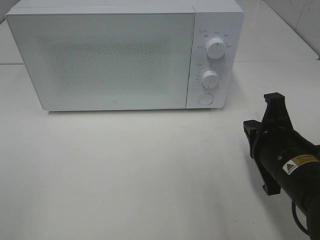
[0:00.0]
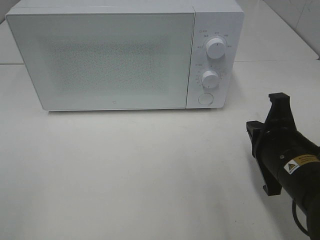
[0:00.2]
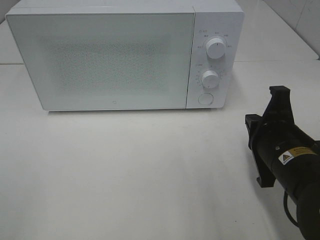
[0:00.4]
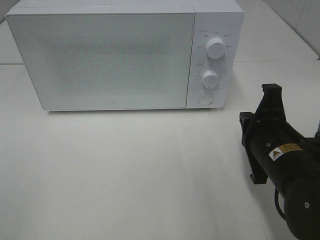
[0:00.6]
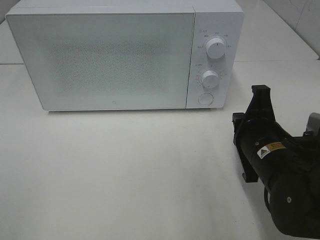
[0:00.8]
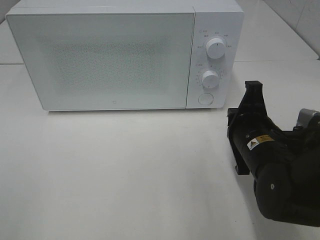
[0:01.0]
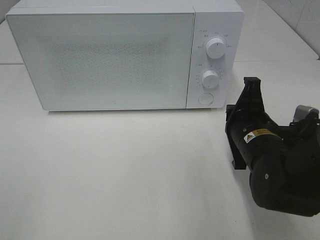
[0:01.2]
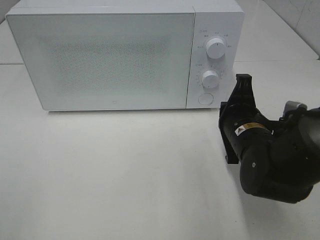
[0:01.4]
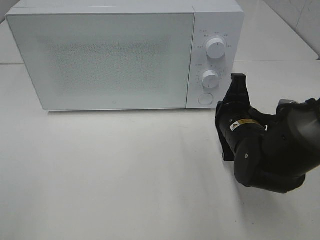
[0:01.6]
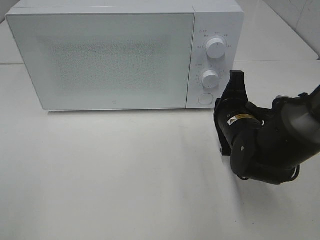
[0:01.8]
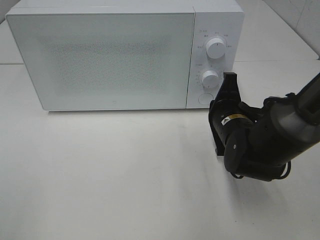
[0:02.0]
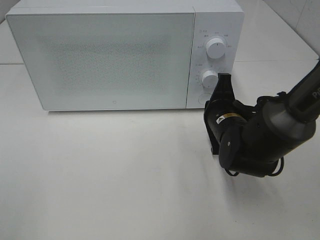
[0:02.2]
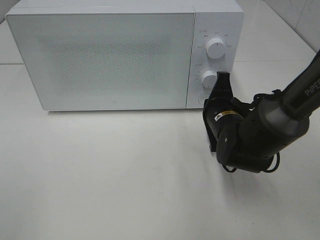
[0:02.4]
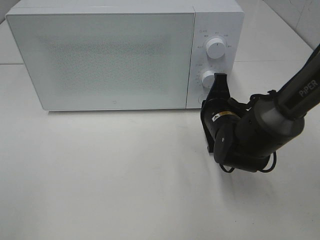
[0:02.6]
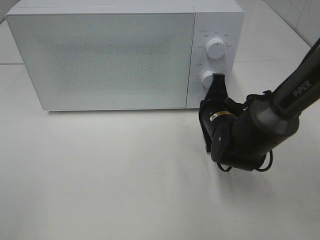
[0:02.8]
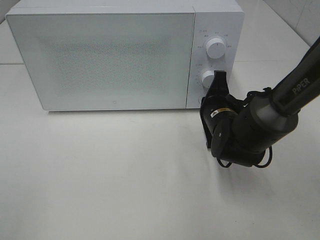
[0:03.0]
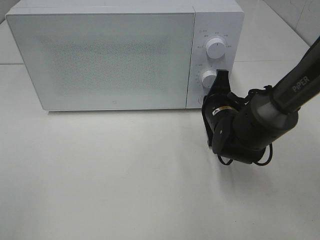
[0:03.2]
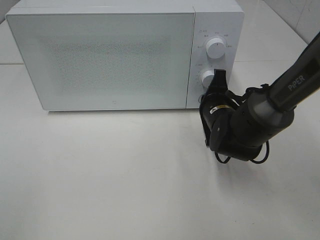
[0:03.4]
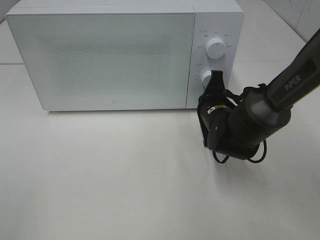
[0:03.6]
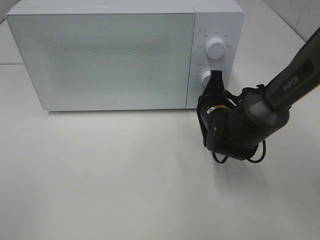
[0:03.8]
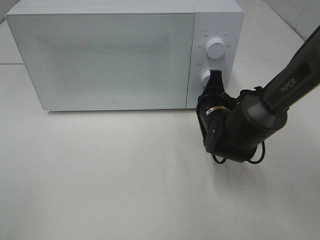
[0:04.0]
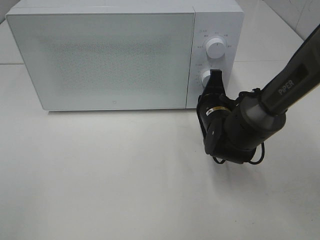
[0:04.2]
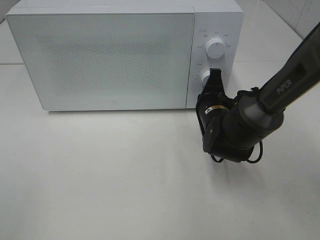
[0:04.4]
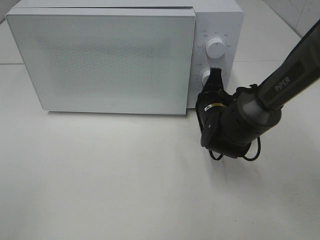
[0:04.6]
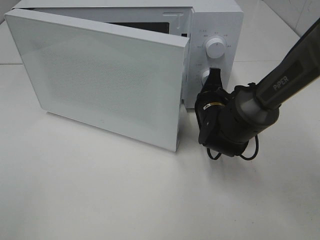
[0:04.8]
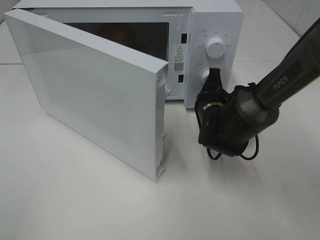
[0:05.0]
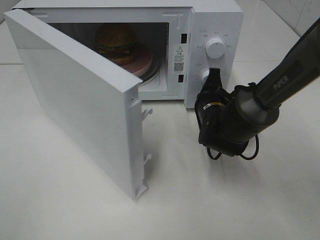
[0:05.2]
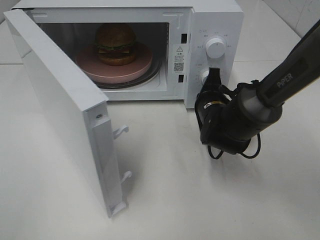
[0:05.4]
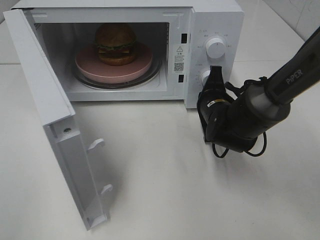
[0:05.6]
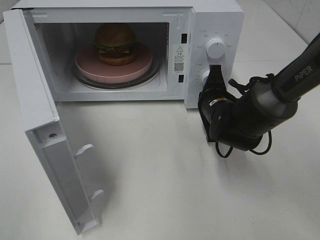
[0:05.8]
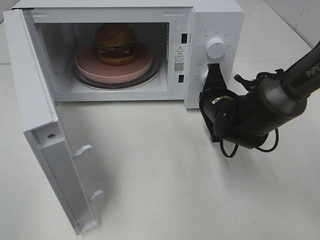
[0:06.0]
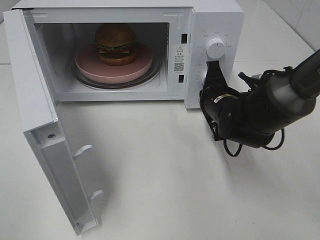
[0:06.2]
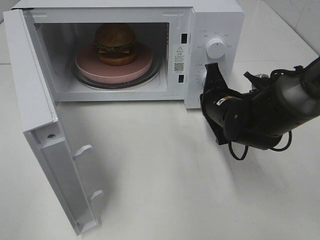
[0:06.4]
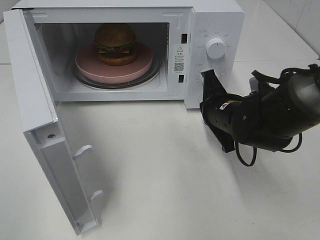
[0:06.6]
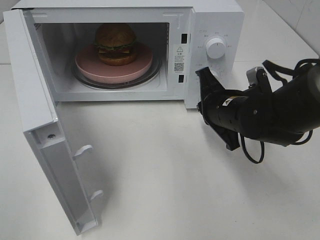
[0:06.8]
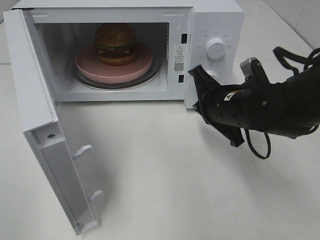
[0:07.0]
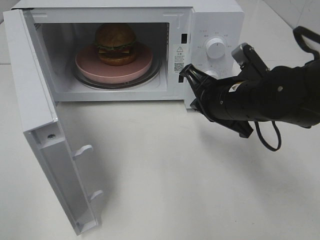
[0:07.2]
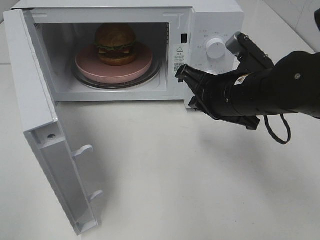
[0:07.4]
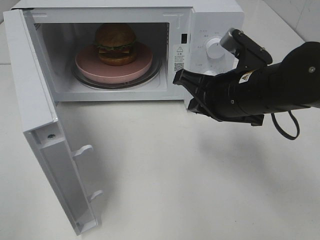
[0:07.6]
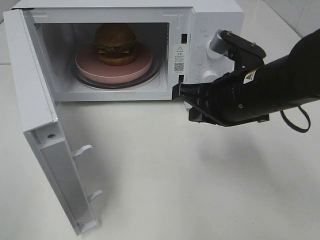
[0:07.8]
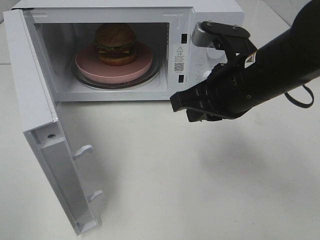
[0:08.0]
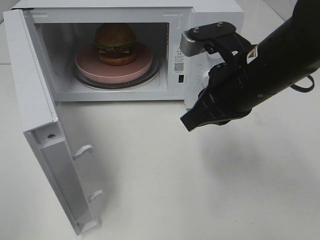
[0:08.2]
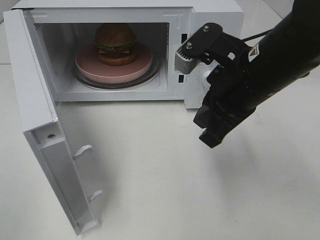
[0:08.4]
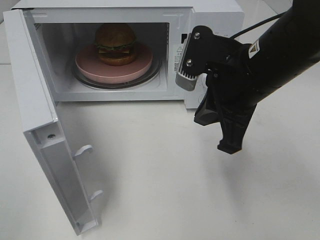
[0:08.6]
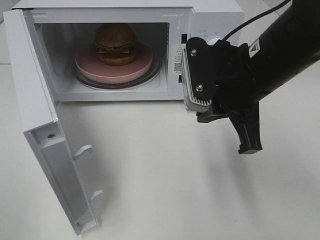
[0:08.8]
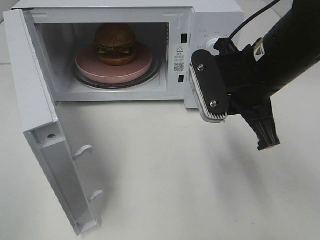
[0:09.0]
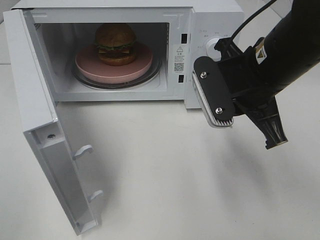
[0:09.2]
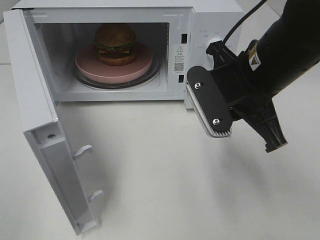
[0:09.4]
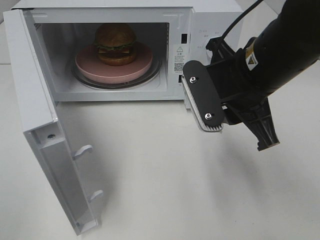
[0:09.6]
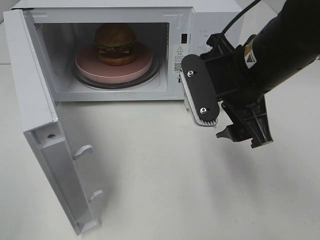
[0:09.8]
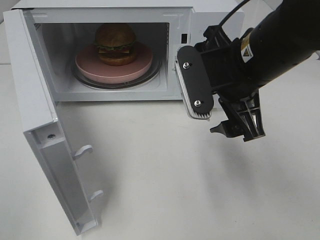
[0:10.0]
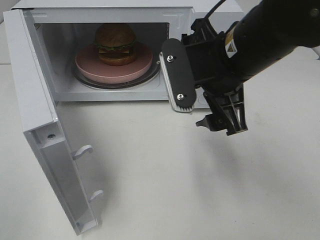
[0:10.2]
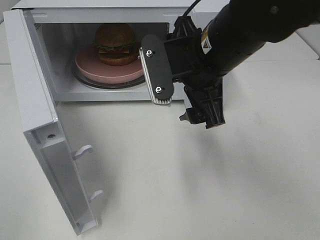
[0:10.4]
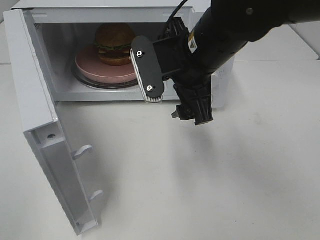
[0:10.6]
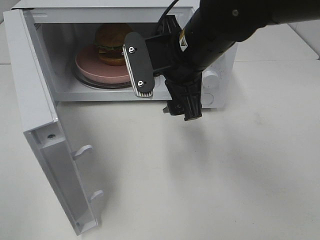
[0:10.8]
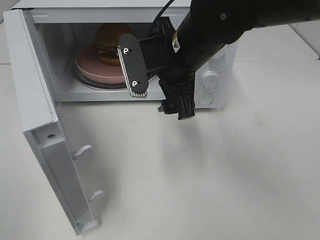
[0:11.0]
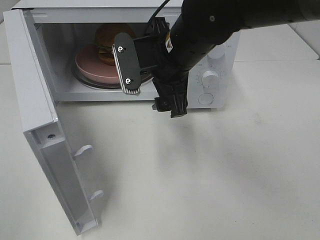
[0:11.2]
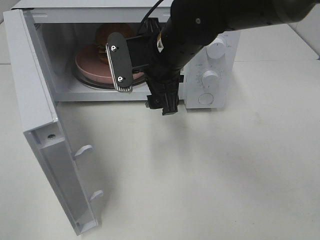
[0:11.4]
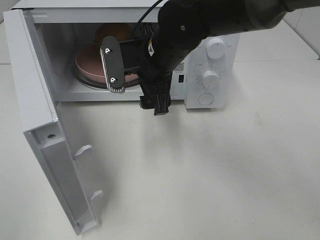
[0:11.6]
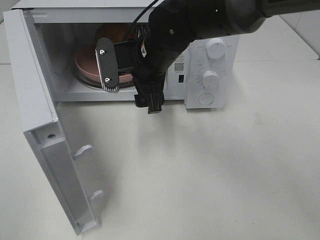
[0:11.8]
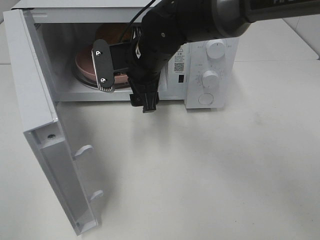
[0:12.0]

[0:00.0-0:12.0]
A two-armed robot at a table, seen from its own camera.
Task of the whole recording: Heat the burger.
Step, 0:00.0 to 0:06.2: Right hand: press the switch.
0:00.0 to 0:01.6: The right gripper moves forward, some 10 cm.
0:01.6 to 0:03.0: The right gripper goes some 5 cm forward.
0:03.0 to 0:04.4: The grippers make only small movements.
0:06.0 to 0:07.6: The right gripper shifts roughly 10 cm upward and backward.
0:07.6 to 0:09.0: The right gripper shifts by approximately 5 cm.
0:09.0 to 0:10.4: The right gripper travels to the left by some 5 cm, and opens its fingers.
0:10.4 to 0:12.0: The right gripper shifts roughly 15 cm forward, to the left and downward.

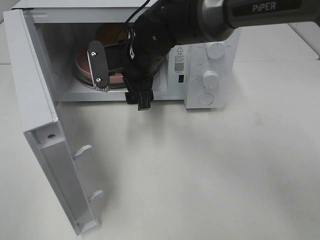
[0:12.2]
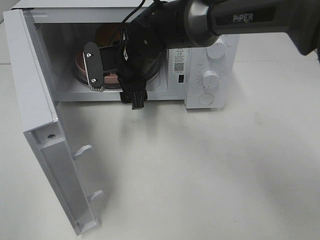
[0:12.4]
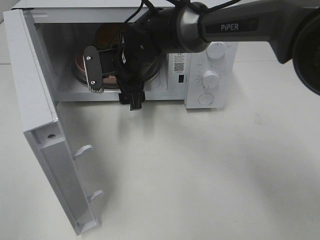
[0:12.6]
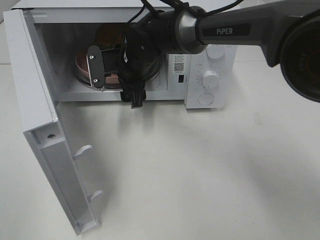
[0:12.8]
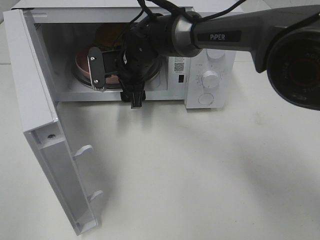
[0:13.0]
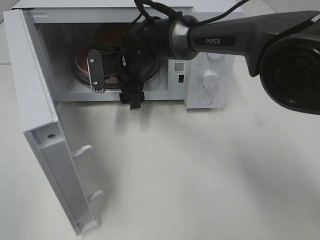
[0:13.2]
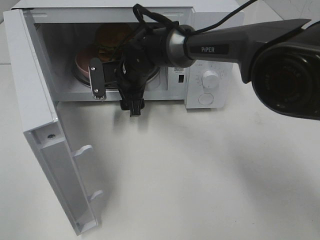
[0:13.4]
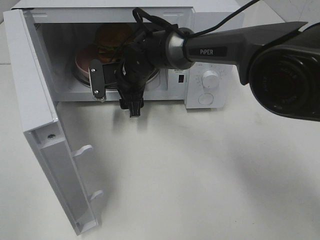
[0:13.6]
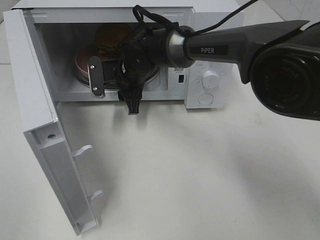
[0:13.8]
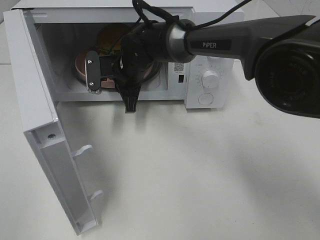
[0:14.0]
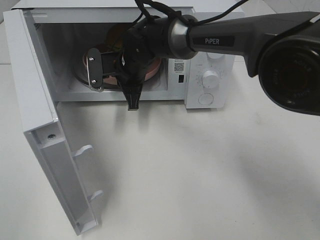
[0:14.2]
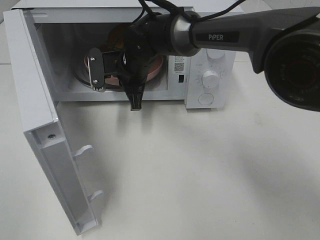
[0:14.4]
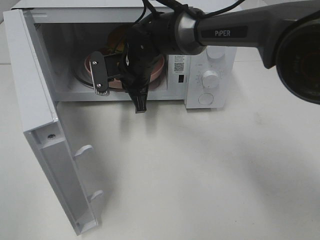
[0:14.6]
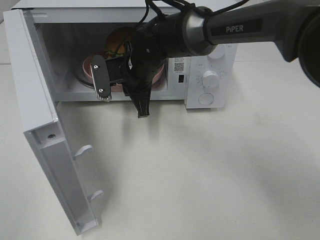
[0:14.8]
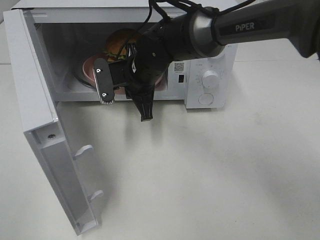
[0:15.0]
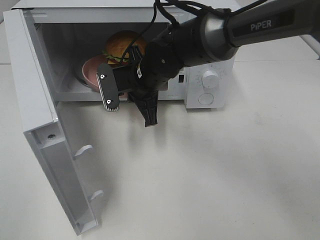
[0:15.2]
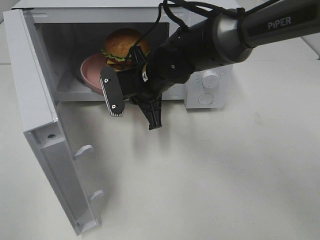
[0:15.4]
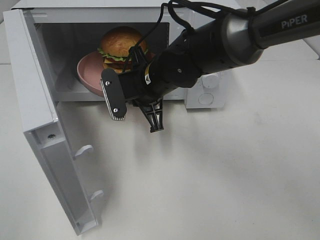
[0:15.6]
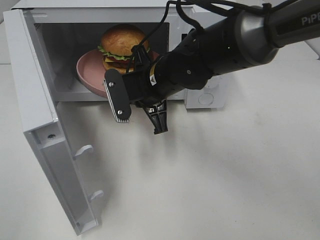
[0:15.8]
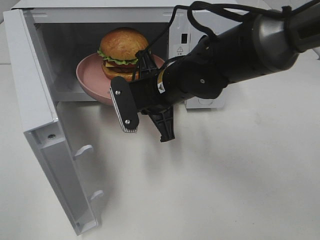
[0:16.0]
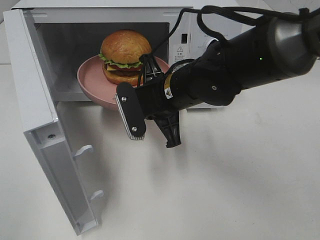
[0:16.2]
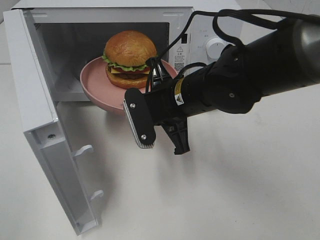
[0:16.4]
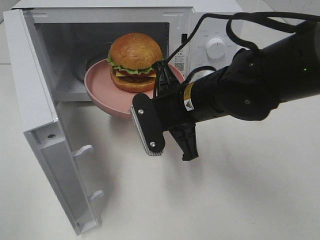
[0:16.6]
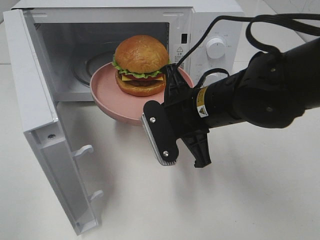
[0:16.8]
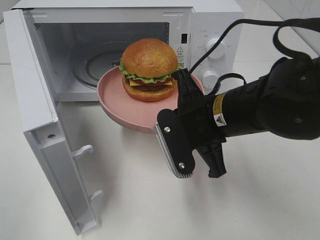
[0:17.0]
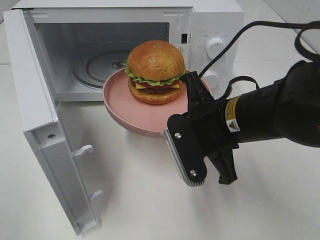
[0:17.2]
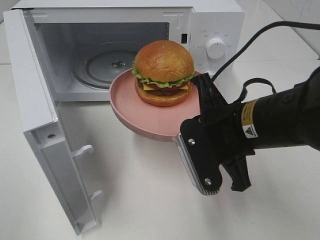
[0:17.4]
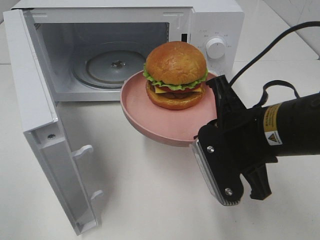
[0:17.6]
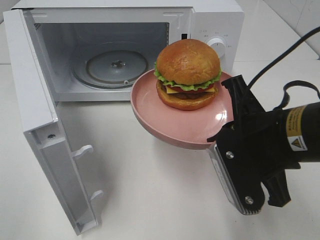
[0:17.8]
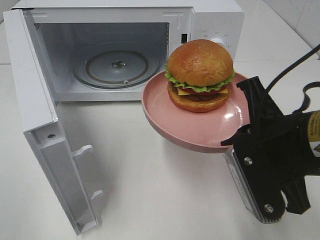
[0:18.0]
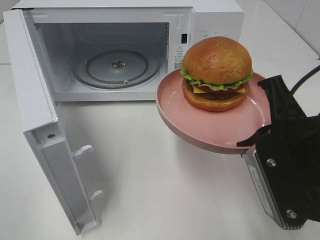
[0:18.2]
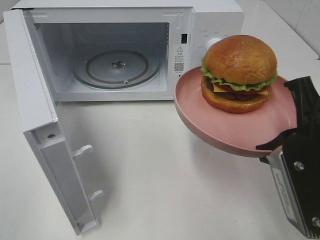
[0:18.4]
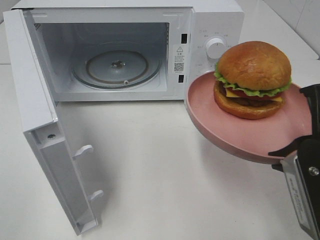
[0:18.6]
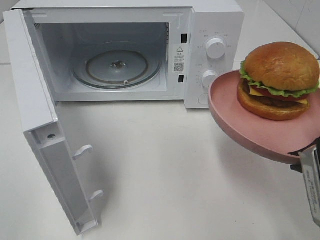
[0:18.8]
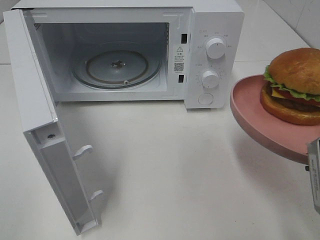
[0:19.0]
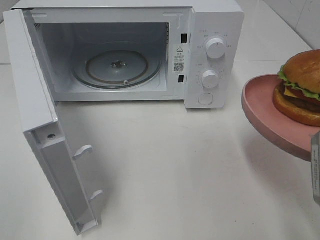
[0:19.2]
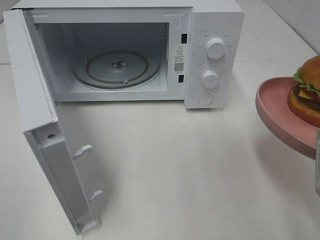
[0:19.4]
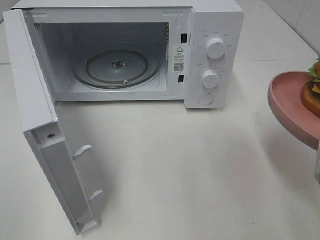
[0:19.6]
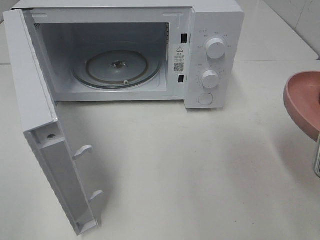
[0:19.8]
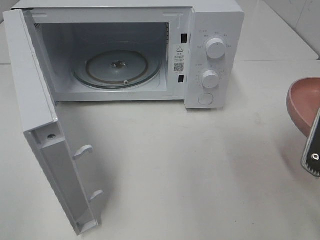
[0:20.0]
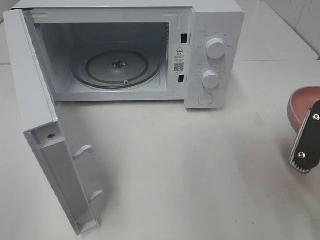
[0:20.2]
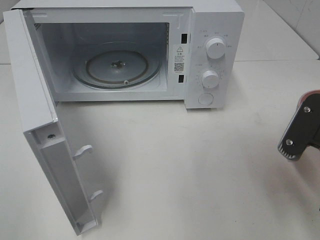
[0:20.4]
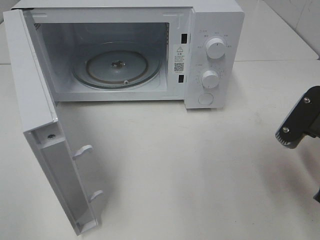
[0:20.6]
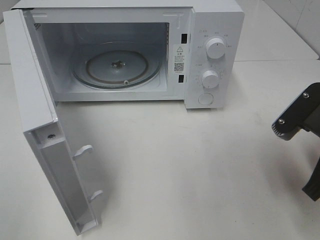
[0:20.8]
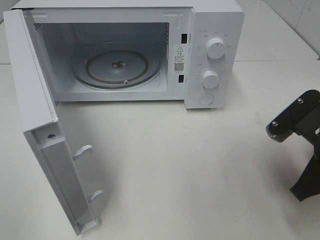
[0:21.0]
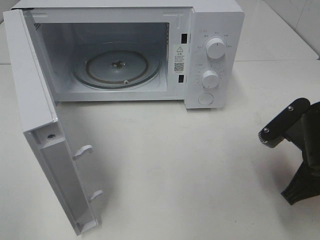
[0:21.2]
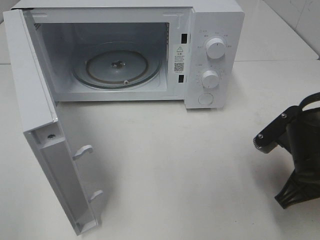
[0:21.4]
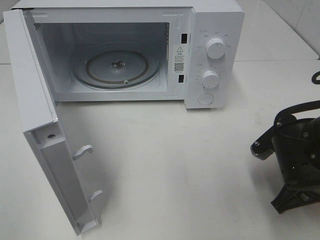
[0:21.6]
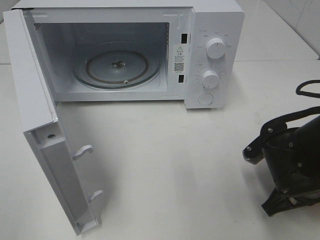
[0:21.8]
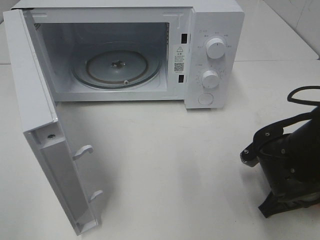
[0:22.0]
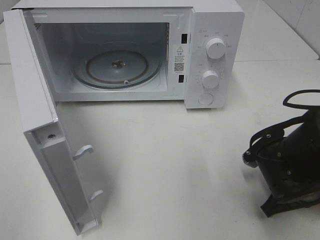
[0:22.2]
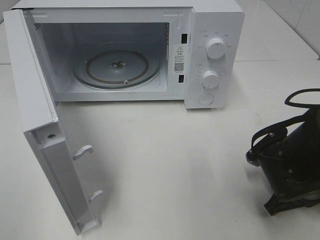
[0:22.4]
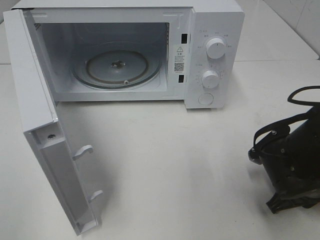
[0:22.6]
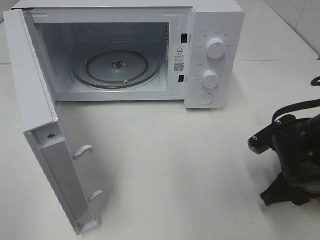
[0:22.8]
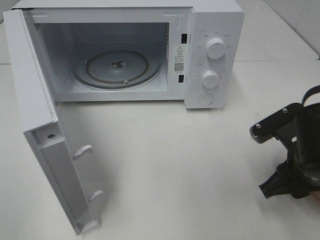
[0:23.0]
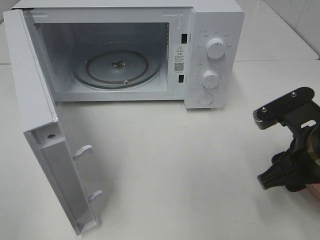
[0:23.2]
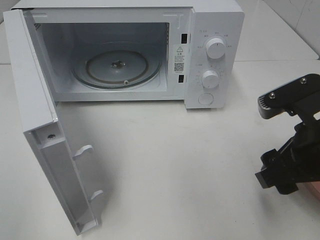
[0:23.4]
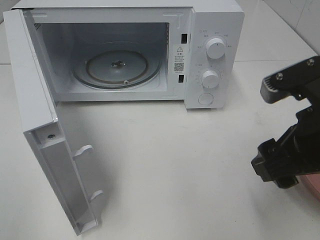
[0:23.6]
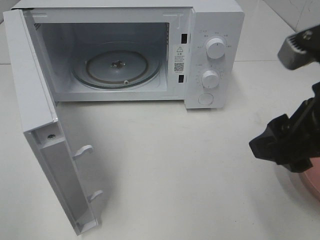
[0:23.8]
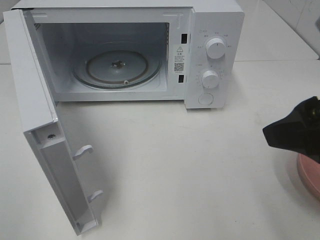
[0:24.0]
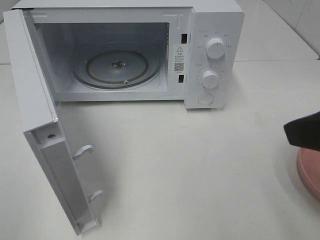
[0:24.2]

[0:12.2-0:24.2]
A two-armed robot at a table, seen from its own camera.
Task of the whole recording: Heat the burger.
Step, 0:14.2 to 0:22.6: Right hand: place the plate on the table.
0:12.2 to 0:13.8: The right gripper travels downward and forward by about 10 cm, and closes.
0:13.8 to 0:15.2: The right gripper shifts approximately 5 cm backward, and closes.
0:15.2 to 0:16.6: The right gripper moves backward and to the right, roughly 10 cm.
0:16.6 to 0:18.2: The right gripper goes some 20 cm backward, to the right and upward.
0:18.2 to 0:19.8: The right gripper goes about 5 cm to the right.
0:19.8 to 0:21.2: The right gripper travels downward and forward by some 10 cm.
0:21.2 to 0:22.6: The right gripper goes approximately 5 cm downward, and opens.
0:22.6 to 0:24.2: The right gripper heads upward, covering some 25 cm, and opens.
